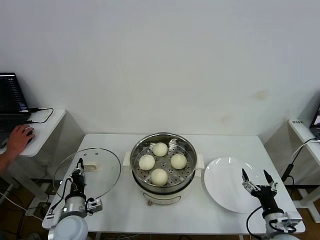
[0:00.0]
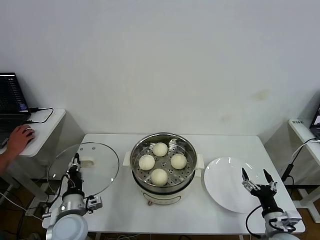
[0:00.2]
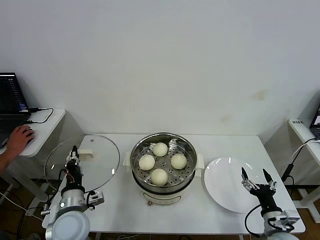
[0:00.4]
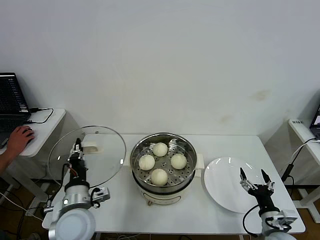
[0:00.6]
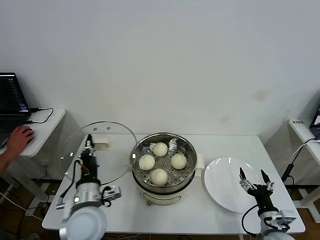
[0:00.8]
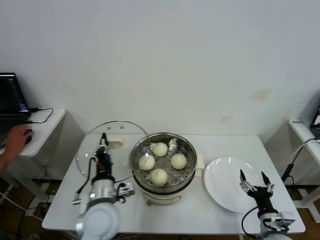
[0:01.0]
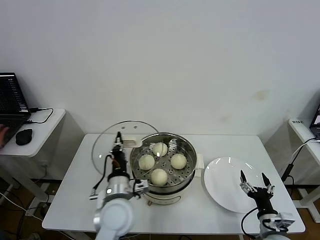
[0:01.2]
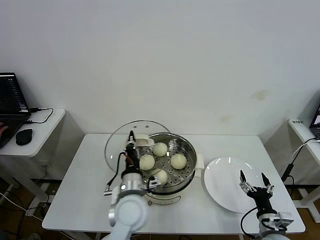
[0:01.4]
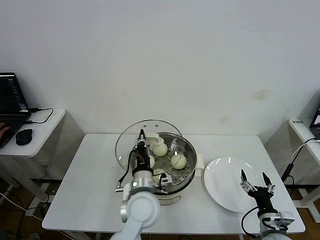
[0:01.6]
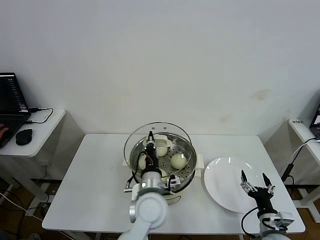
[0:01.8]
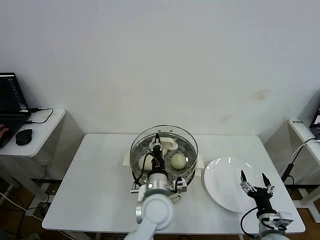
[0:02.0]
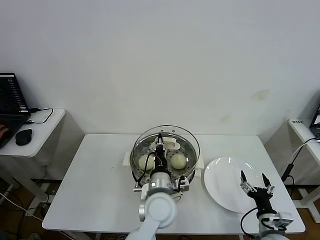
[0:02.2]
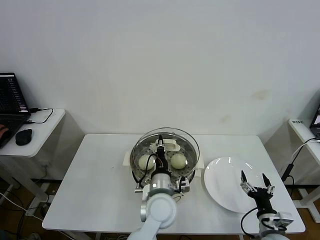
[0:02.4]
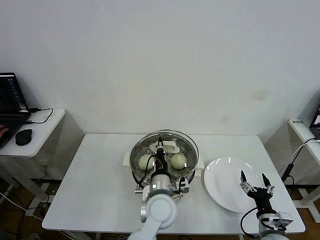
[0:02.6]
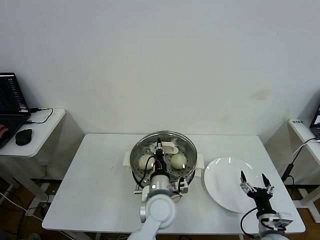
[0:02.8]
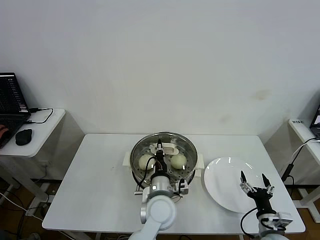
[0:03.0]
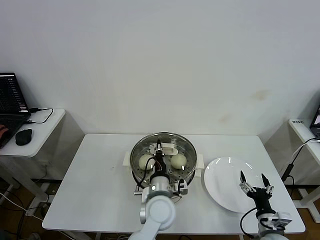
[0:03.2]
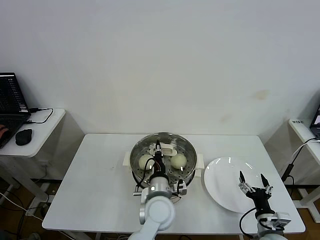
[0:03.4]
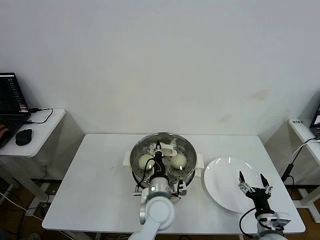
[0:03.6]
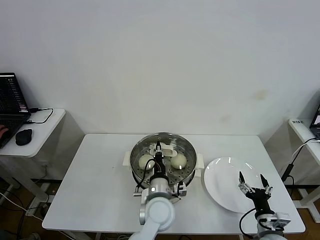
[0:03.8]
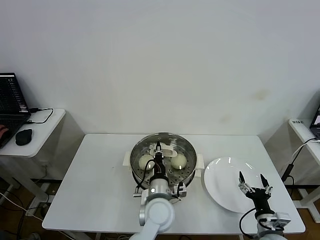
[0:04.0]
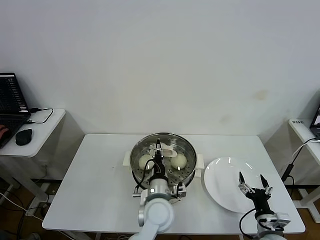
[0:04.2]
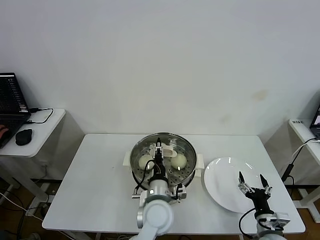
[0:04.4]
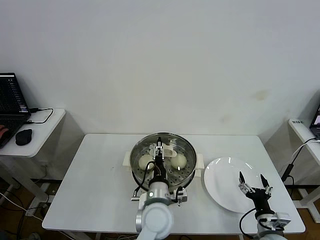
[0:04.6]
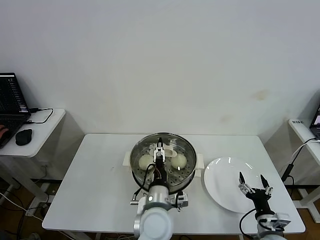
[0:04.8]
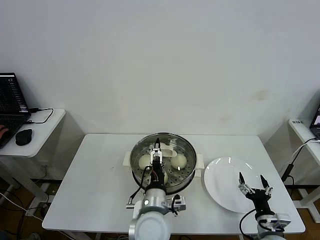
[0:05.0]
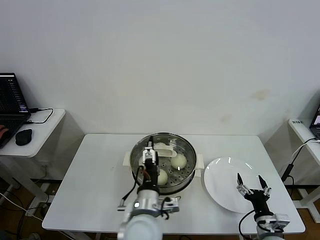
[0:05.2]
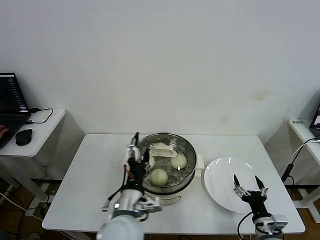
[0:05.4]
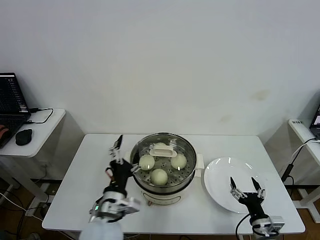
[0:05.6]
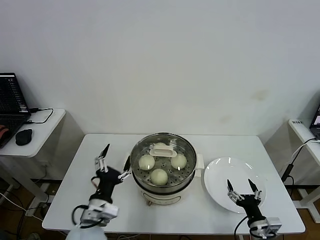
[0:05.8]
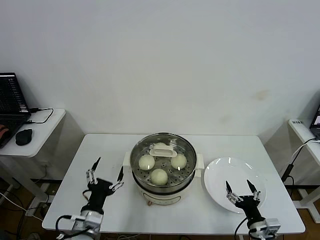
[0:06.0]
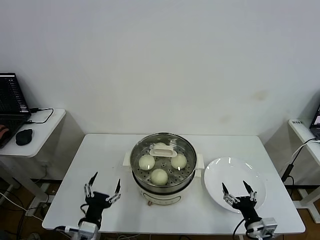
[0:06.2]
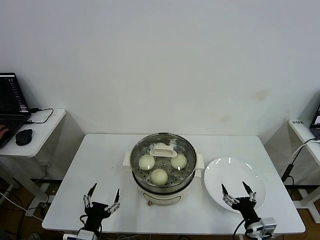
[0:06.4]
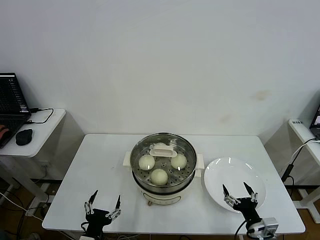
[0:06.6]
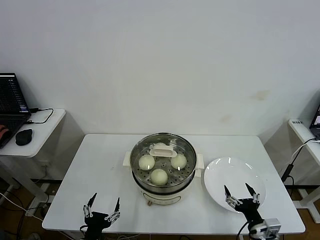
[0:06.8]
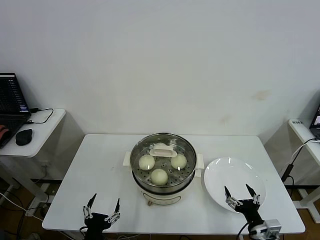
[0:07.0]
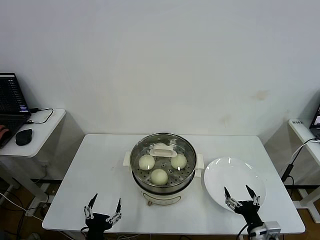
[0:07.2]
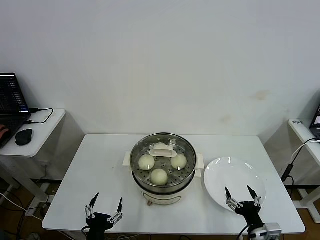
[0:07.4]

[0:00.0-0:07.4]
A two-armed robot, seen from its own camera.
Step, 0:00.0 to 0:04.8: Place the pot lid on the steamer with left gripper.
0:00.0 to 0:01.4: The left gripper travels to the right and upward by some 20 cm.
0:01.4 to 0:03.0: The left gripper moves to the right, roughly 10 cm.
0:03.0 to 0:04.4: The left gripper opens its fingers.
0:04.4 to 0:06.0: The left gripper goes roughly 20 cm to the left and backward, and opens its fingers.
0:06.0 to 0:07.4: The left gripper moves backward and downward, about 10 cm.

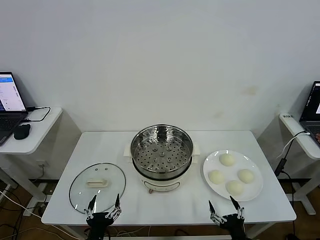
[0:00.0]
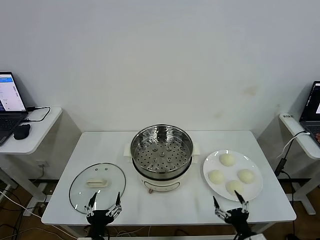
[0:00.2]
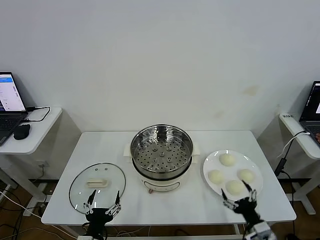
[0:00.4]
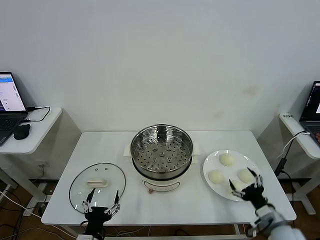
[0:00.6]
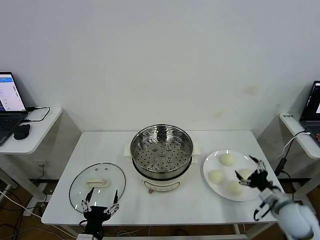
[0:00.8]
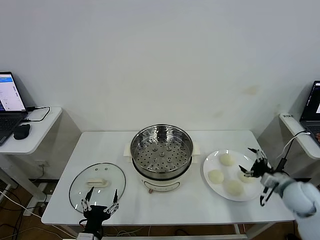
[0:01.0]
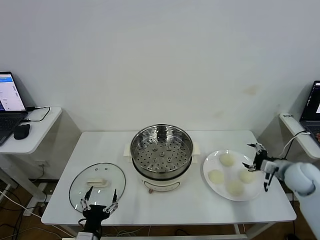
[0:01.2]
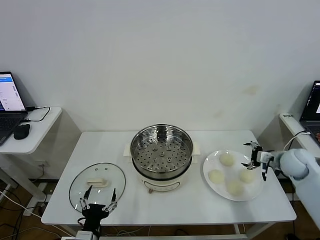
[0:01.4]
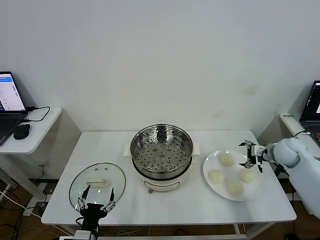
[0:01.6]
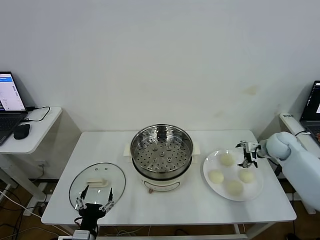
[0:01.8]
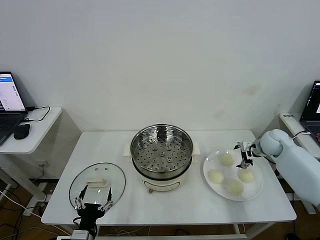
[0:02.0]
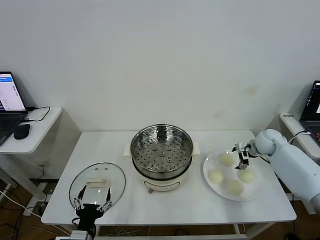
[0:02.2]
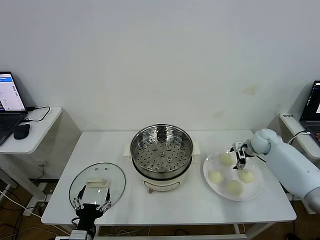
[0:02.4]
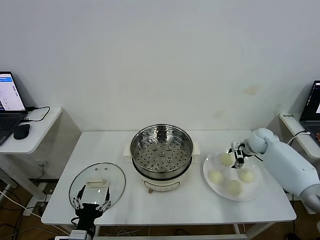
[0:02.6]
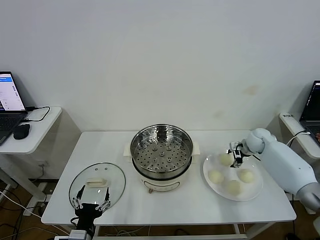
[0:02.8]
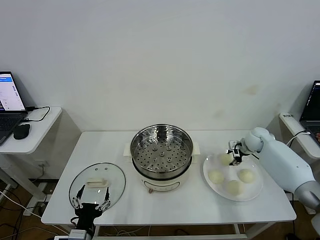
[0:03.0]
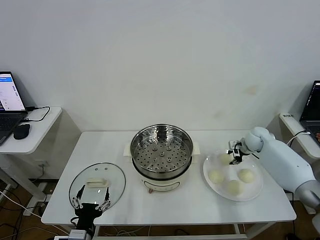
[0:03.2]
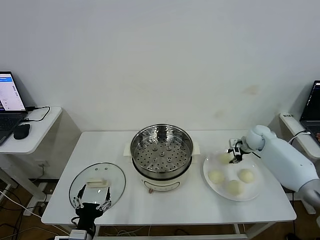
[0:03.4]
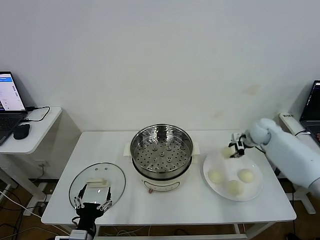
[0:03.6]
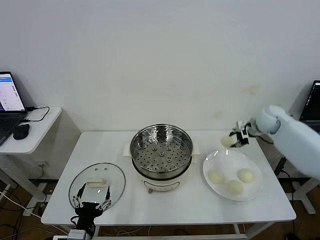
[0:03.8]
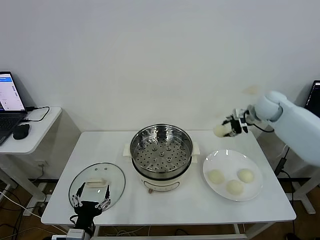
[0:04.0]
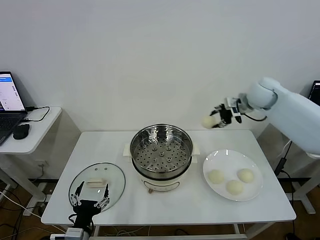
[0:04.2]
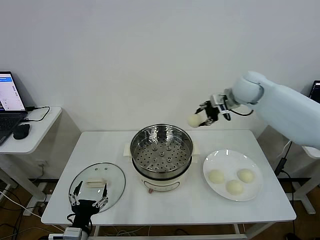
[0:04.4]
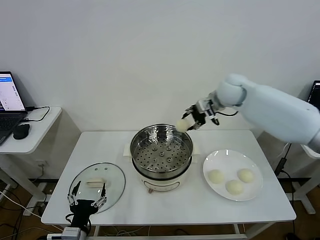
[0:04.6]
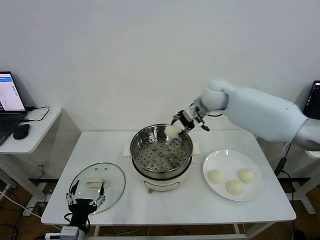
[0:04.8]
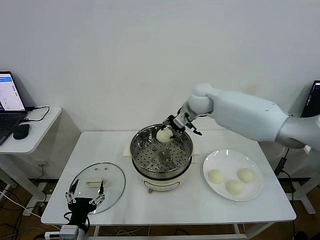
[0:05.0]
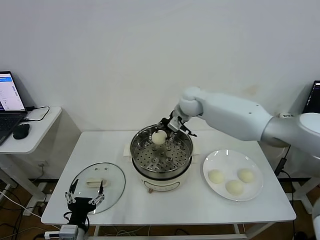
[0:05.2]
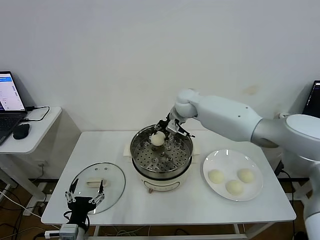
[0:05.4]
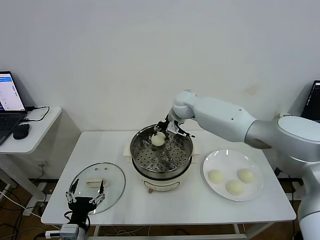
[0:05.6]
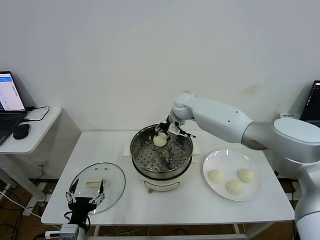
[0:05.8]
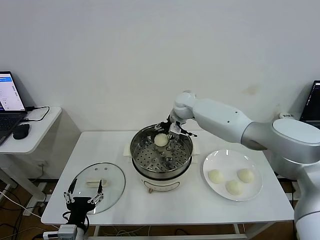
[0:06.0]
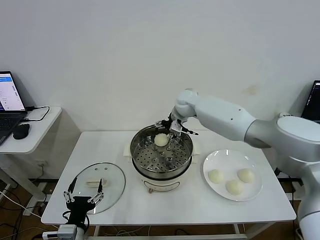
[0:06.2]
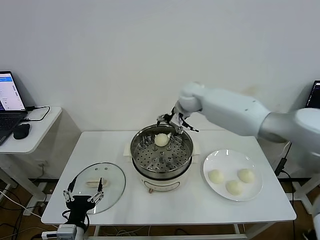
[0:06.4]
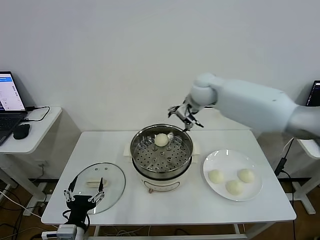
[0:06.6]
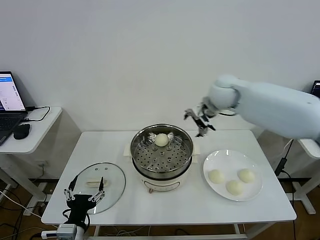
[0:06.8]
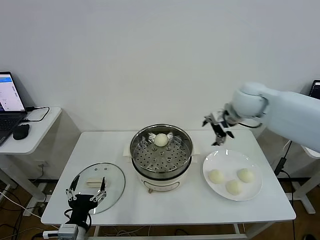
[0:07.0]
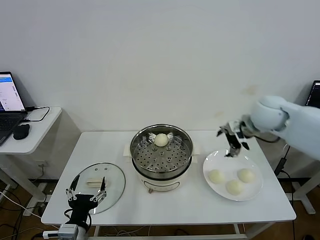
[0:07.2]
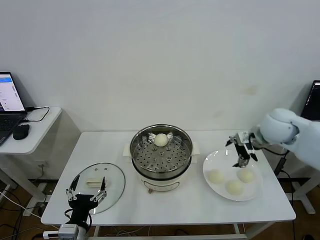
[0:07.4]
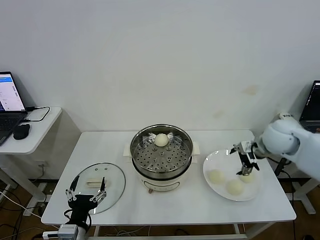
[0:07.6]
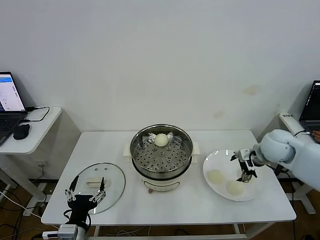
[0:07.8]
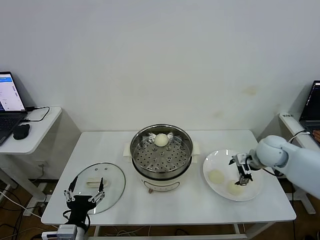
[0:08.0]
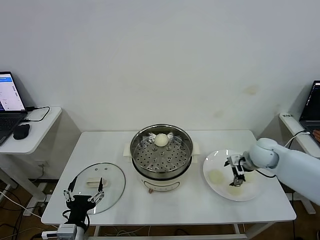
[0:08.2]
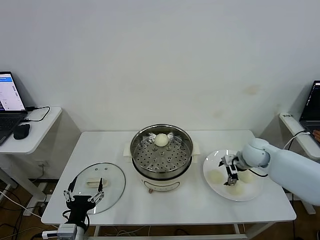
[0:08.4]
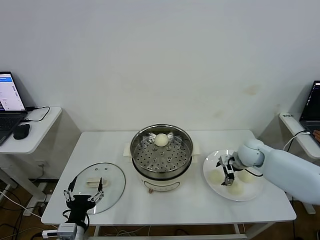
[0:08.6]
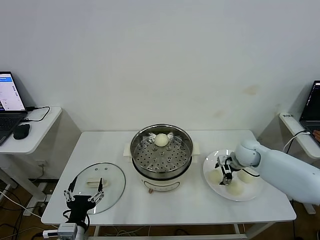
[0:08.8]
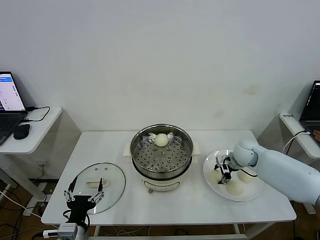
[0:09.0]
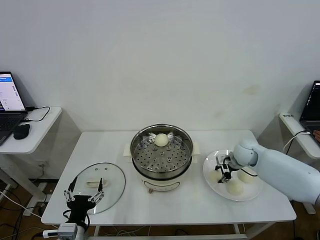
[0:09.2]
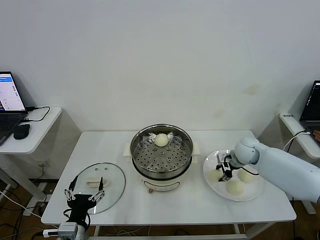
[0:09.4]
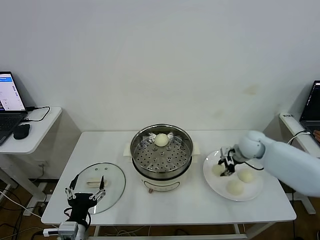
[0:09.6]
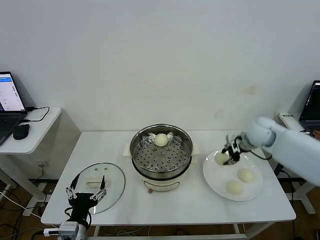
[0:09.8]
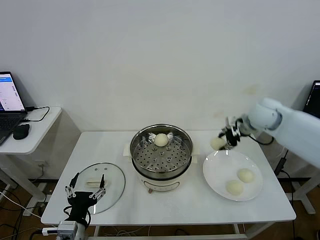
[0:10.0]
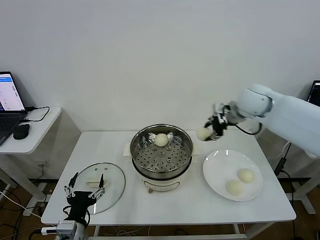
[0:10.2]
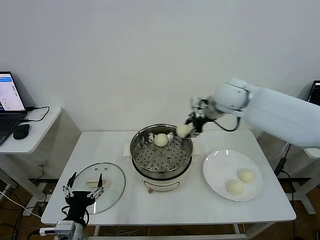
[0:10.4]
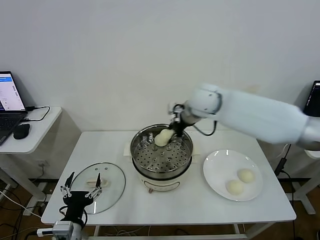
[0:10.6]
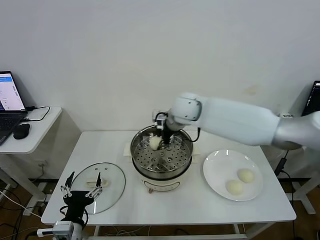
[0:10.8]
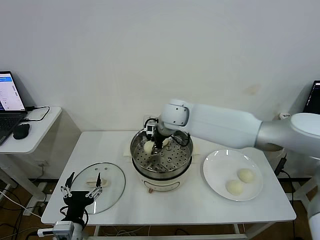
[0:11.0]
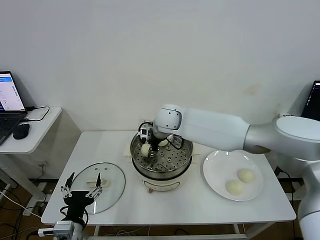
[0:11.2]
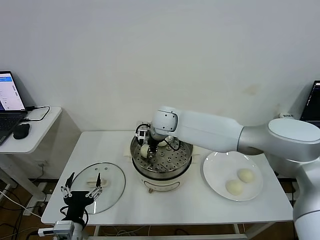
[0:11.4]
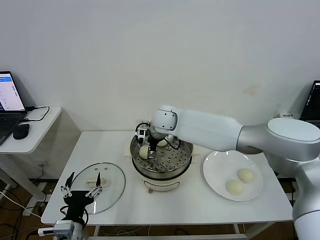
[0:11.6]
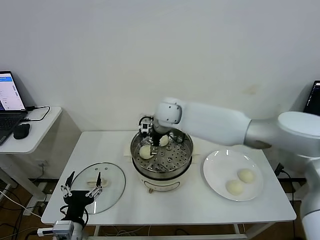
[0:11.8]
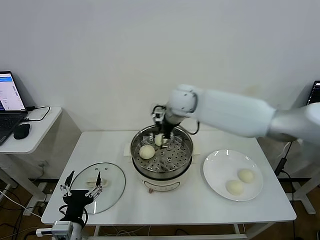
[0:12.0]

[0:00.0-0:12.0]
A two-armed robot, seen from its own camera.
Step, 0:00.0 to 0:03.2: Grasp the baozi in the plate with right gripper.
Step, 0:03.4 to 0:06.2: Place the baozi on the steamer with right gripper.
Step, 0:06.4 to 0:08.8: Grasp the baozi in the plate with right gripper.
Step, 0:09.0 to 0:11.8: Place the baozi on the steamer with right gripper.
0:01.6 to 0:03.0: The right gripper moves forward, about 10 cm, and closes up.
0:03.0 to 0:04.4: The right gripper heads upward and to the left, covering approximately 25 cm.
0:04.4 to 0:06.0: The right gripper moves to the left and downward, some 15 cm, and opens its fingers.
0:06.0 to 0:07.6: The right gripper goes approximately 30 cm to the right and backward.
0:07.6 to 0:09.0: The right gripper travels downward and forward by some 15 cm, and closes its fingers.
0:09.0 to 0:10.4: The right gripper goes approximately 30 cm upward and to the left.
0:10.4 to 0:12.0: The right gripper moves to the left, approximately 5 cm, and opens up.

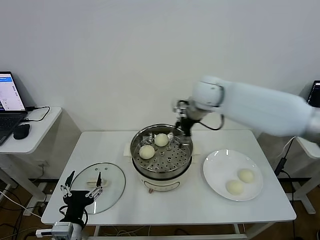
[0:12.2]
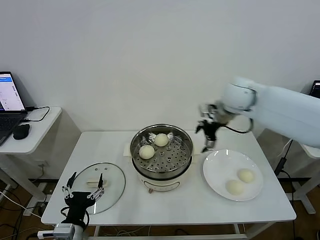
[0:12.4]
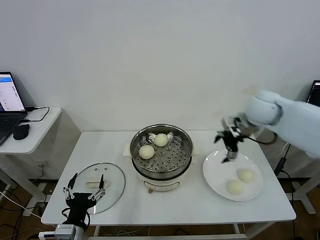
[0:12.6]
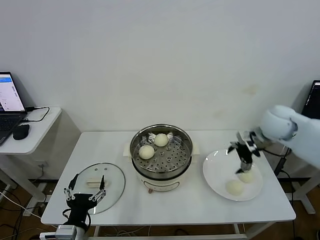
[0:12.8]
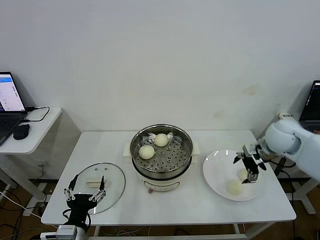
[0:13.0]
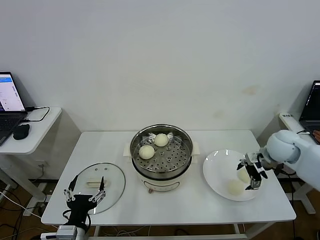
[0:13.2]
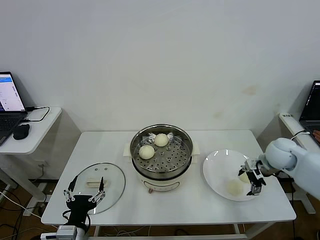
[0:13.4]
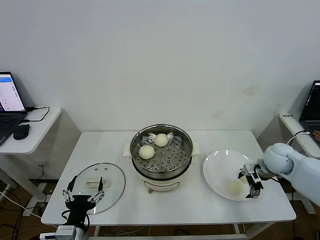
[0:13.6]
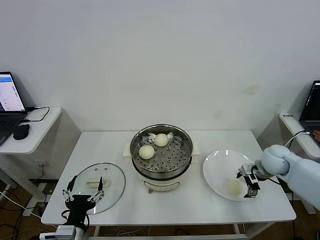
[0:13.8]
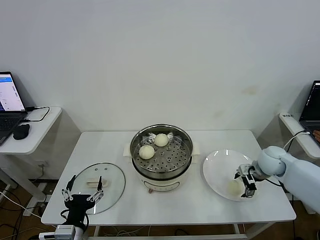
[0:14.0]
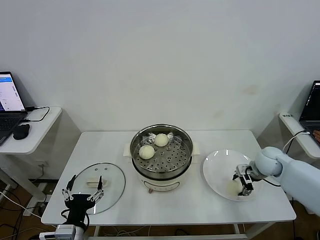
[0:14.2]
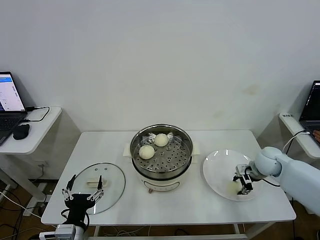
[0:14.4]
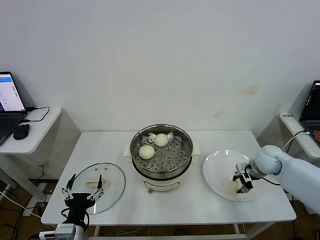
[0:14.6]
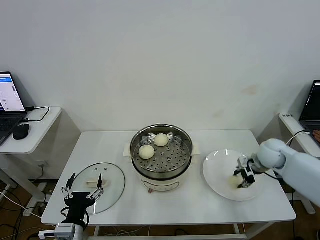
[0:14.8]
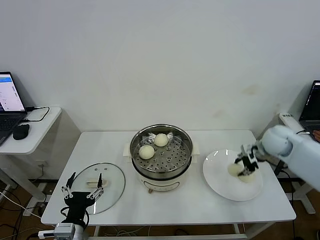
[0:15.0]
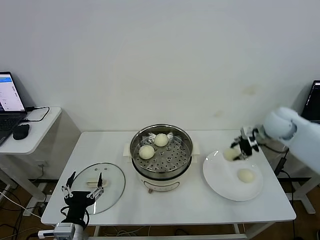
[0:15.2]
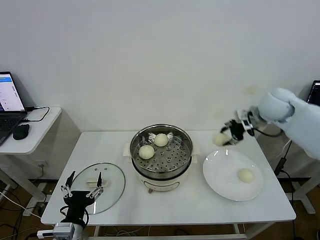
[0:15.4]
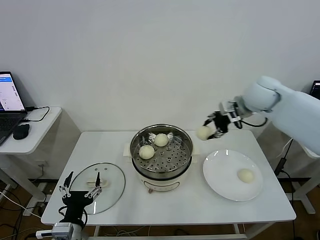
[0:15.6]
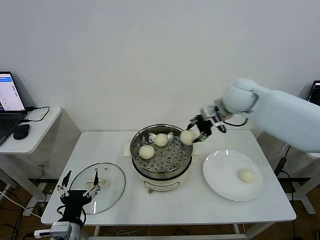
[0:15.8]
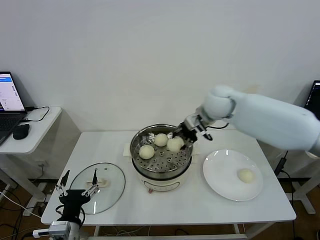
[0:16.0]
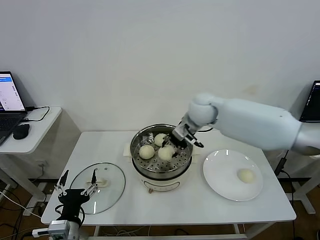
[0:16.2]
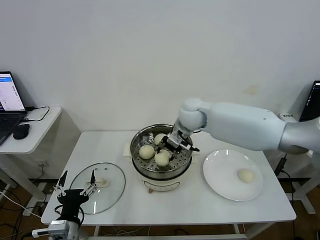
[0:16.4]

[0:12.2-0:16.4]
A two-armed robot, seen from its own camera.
Step, 0:12.2 to 0:14.2: Grasp the baozi in the plate with right gripper.
0:12.2 to 0:13.6: The right gripper moves to the right, downward and backward, approximately 30 cm.
0:13.6 to 0:15.0: The right gripper shifts about 5 cm upward, and closes.
0:15.0 to 0:16.4: The right gripper is displaced to the left by about 30 cm.
